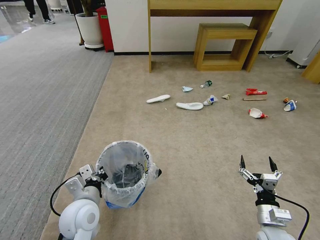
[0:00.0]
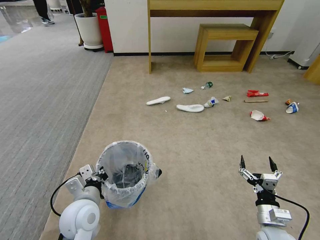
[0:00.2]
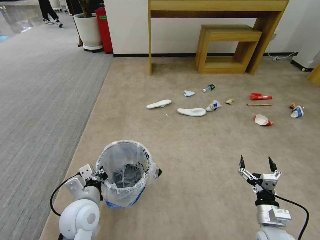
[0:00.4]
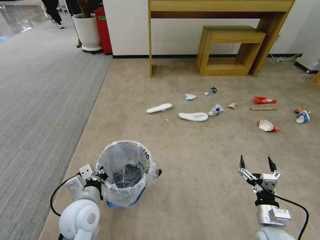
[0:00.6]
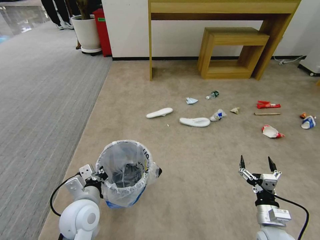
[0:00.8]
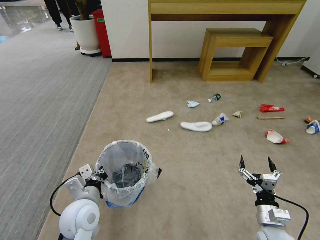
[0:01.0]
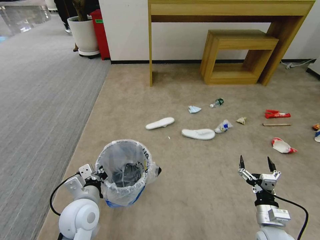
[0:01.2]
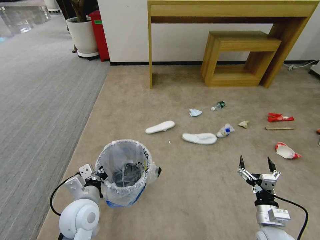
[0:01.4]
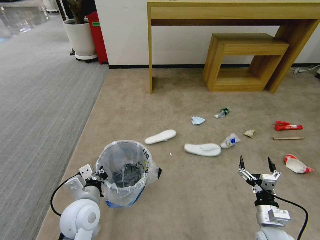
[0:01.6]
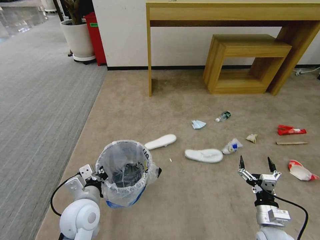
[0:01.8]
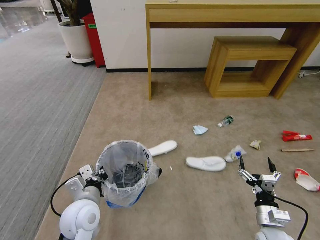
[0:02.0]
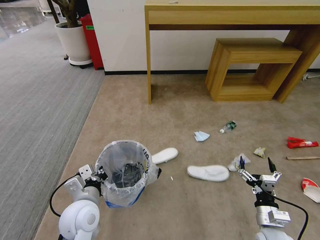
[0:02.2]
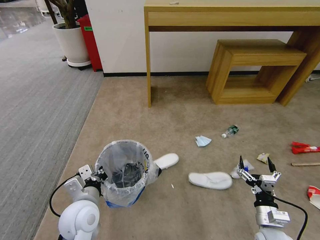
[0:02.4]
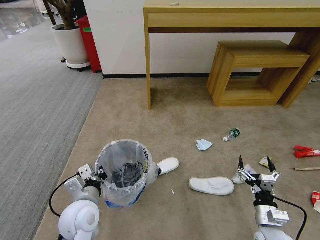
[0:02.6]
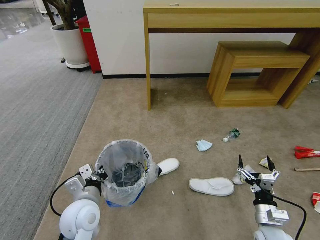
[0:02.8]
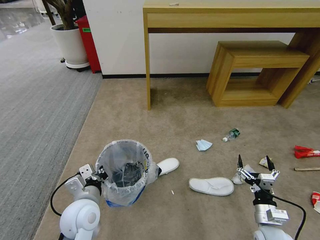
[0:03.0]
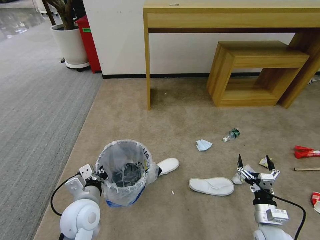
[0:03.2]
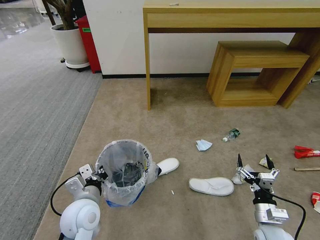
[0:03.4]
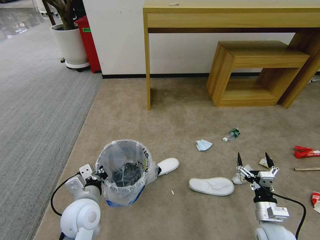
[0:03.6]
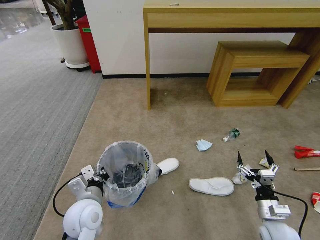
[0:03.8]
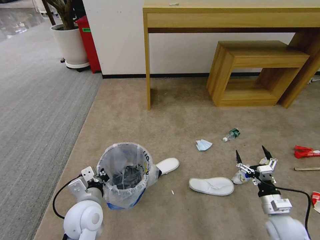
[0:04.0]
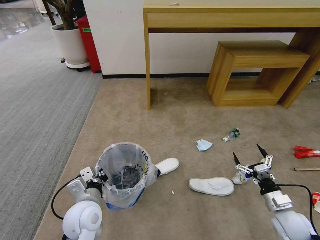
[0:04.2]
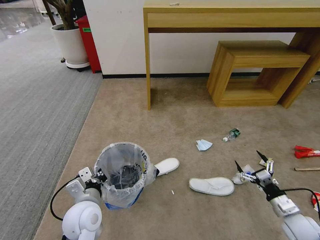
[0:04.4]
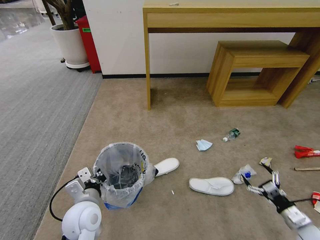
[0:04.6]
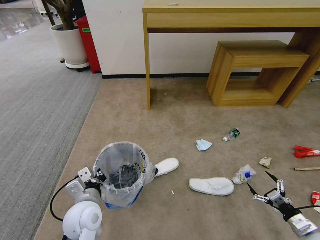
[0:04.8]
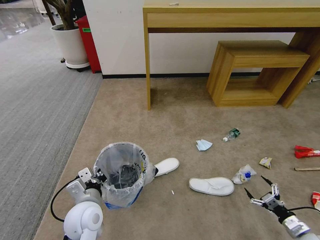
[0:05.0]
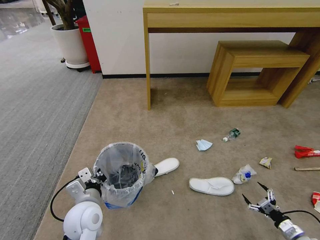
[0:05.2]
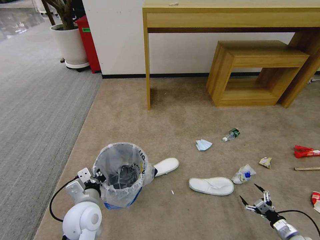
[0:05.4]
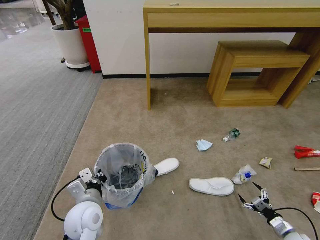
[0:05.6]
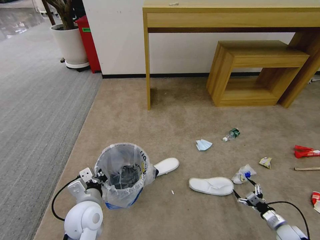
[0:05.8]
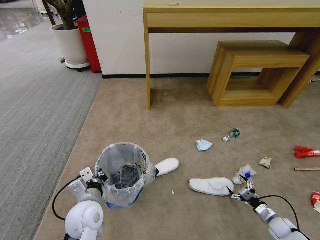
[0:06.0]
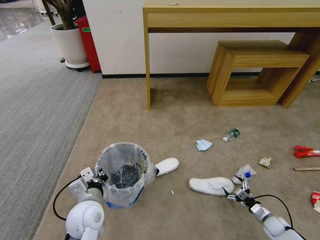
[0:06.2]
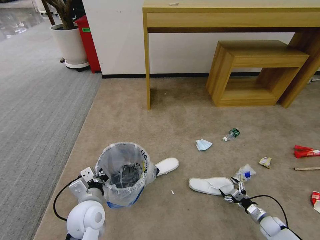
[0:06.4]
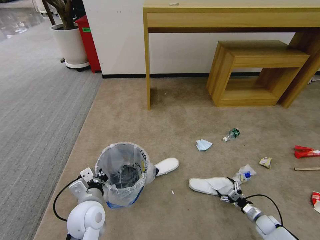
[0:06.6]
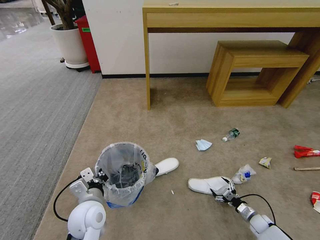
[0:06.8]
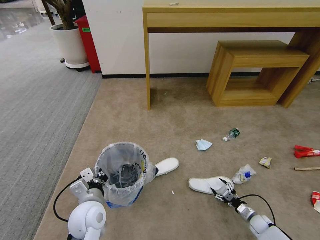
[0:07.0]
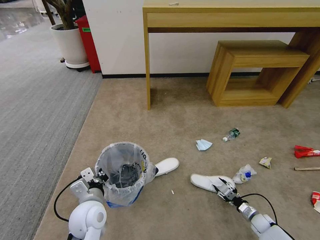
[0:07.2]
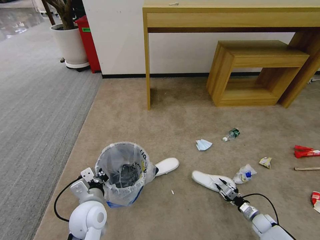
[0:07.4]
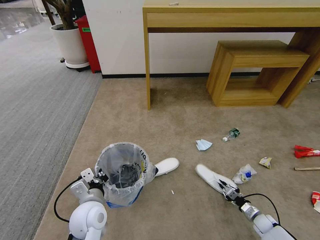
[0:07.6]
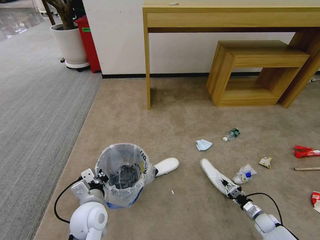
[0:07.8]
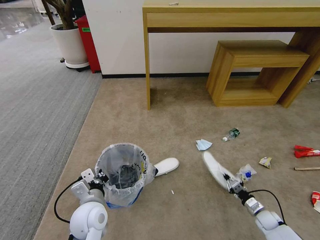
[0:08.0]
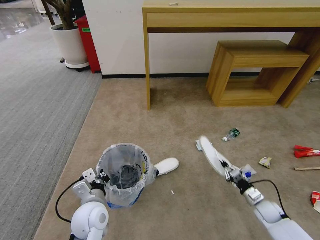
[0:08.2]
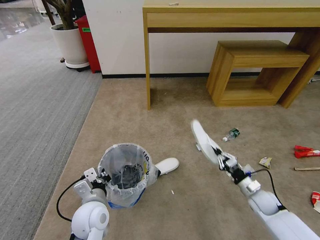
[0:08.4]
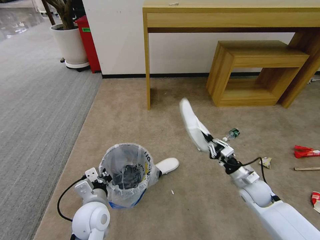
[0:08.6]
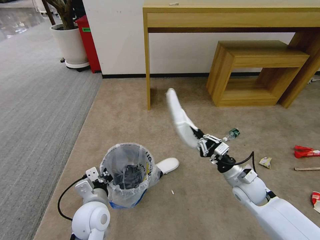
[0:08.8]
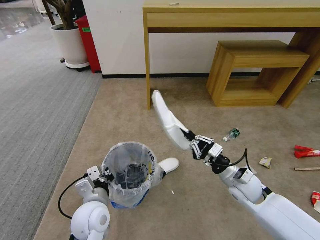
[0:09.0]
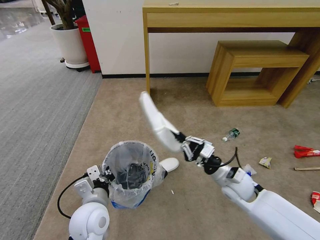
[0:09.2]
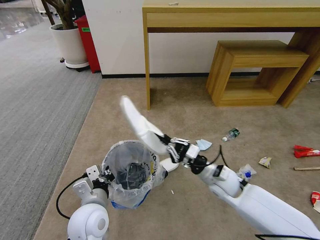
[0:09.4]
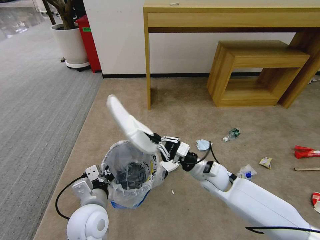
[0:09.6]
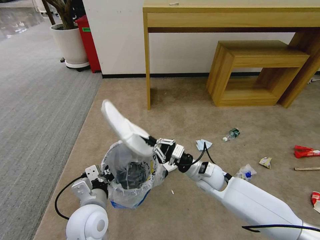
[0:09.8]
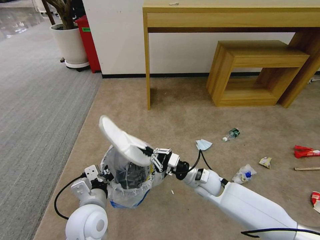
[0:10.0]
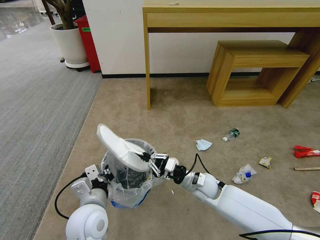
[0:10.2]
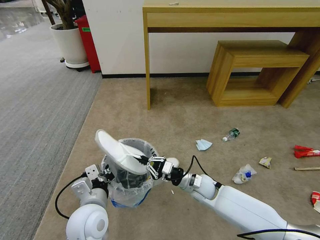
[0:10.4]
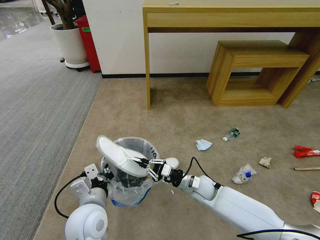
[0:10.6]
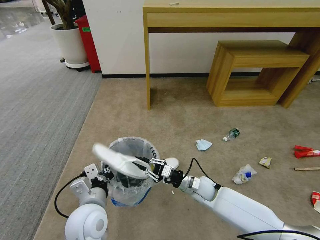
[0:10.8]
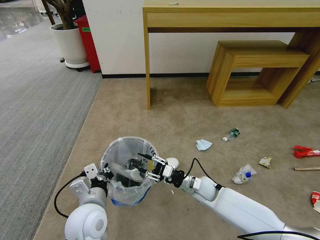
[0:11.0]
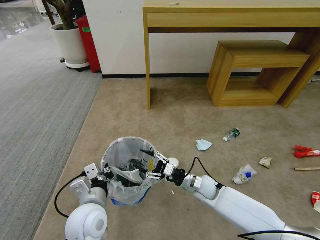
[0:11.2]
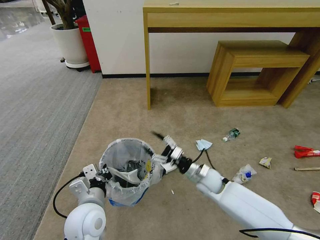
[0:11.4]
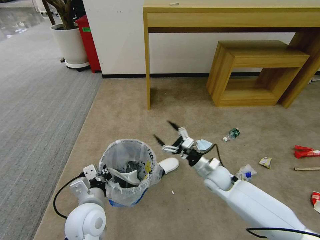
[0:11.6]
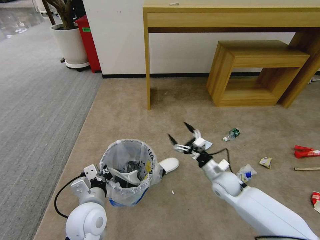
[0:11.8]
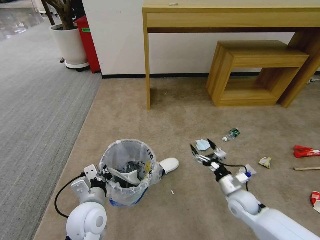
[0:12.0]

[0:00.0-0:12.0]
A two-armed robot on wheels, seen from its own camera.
Task of the whole recording: Pick up the trash bin and place the garbage on the floor into it.
0:03.0 to 0:04.4: The right gripper moves to the right, some 10 cm.
0:04.4 to 0:06.0: The right gripper is displaced downward by approximately 15 cm.
0:06.0 to 0:07.6: The right gripper changes place by some 5 cm, and closes up.
0:07.6 to 0:09.0: The right gripper moves upward and to the left, about 35 cm.
0:09.0 to 0:10.4: The right gripper heads to the left and downward, covering some 15 cm.
0:10.4 to 0:12.0: The right gripper is displaced to the right by some 15 cm, and opens its fingers.

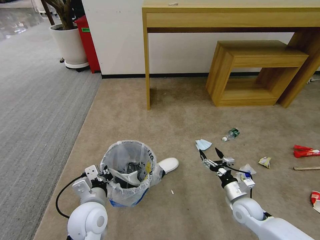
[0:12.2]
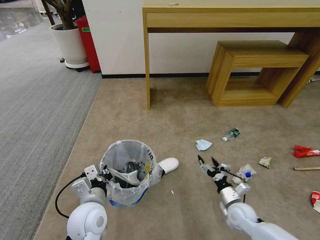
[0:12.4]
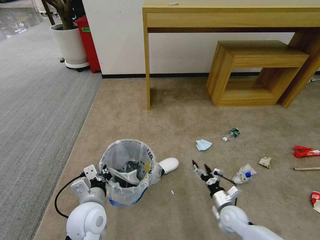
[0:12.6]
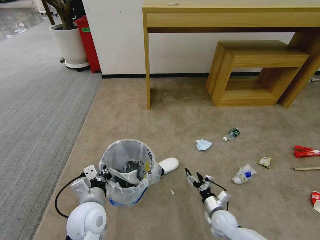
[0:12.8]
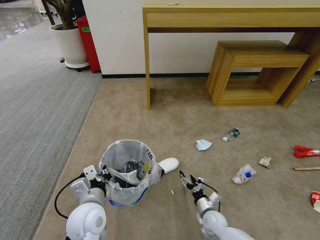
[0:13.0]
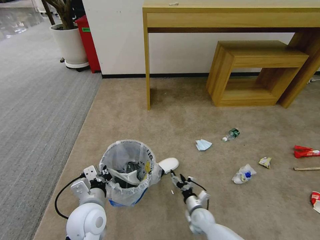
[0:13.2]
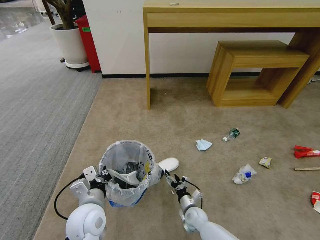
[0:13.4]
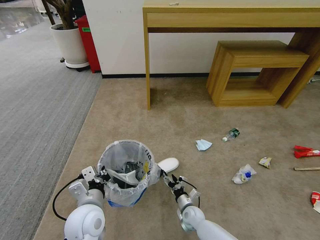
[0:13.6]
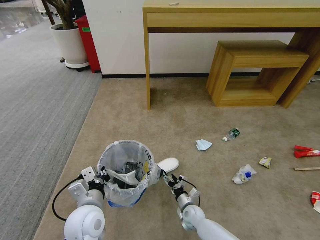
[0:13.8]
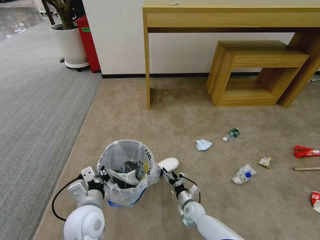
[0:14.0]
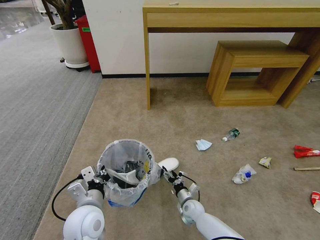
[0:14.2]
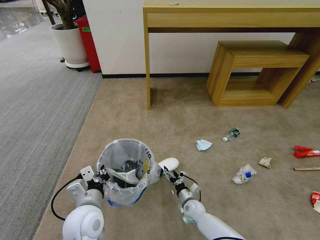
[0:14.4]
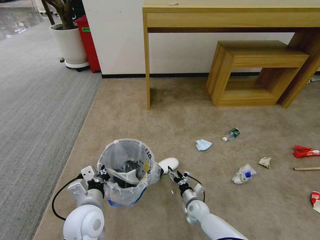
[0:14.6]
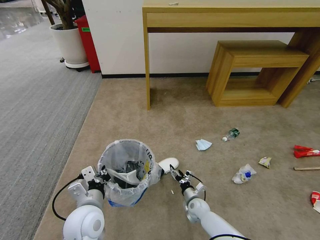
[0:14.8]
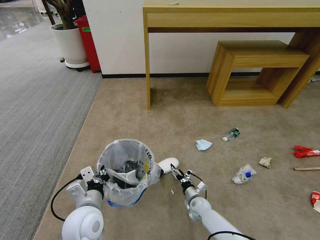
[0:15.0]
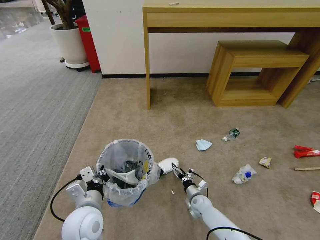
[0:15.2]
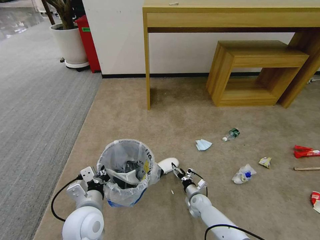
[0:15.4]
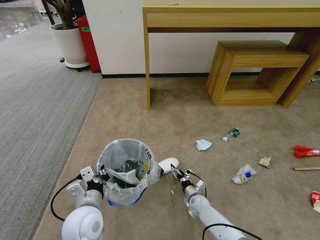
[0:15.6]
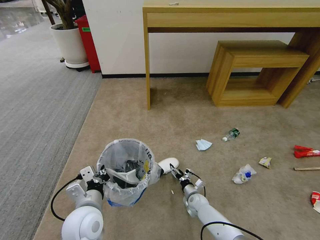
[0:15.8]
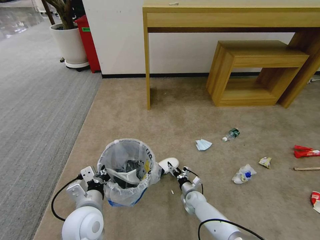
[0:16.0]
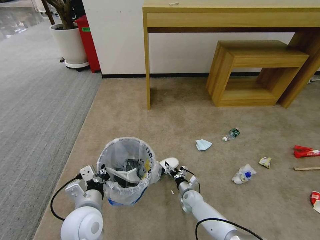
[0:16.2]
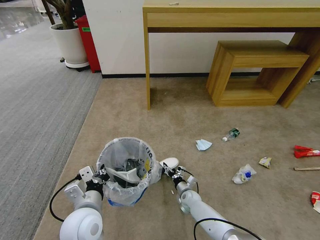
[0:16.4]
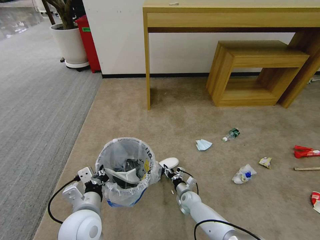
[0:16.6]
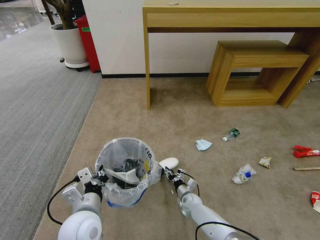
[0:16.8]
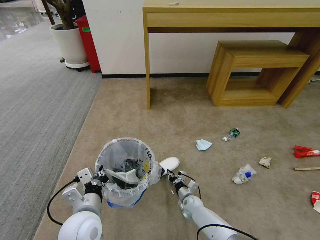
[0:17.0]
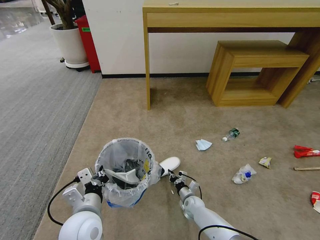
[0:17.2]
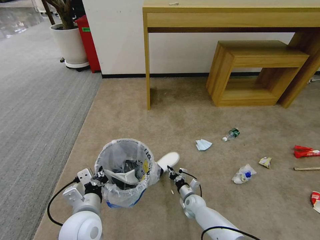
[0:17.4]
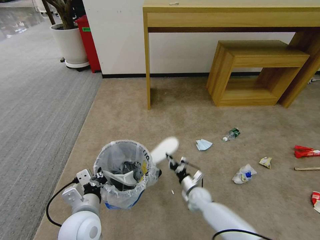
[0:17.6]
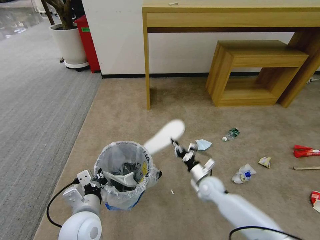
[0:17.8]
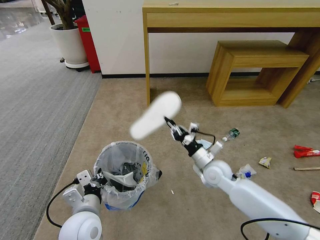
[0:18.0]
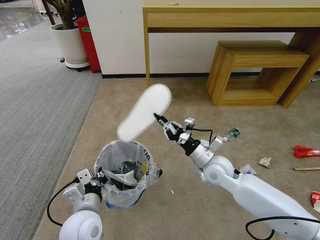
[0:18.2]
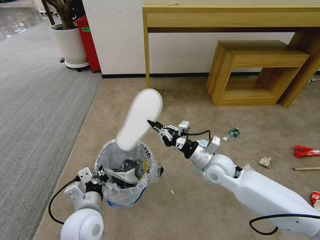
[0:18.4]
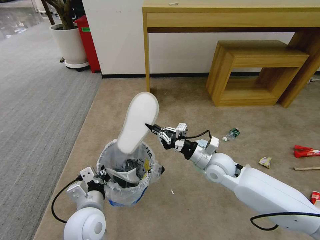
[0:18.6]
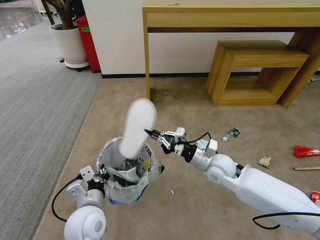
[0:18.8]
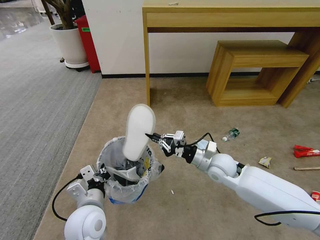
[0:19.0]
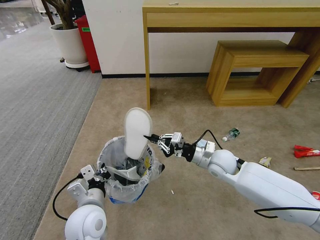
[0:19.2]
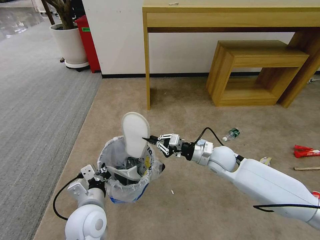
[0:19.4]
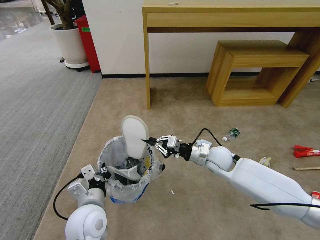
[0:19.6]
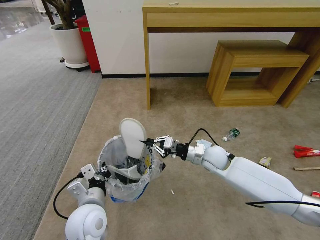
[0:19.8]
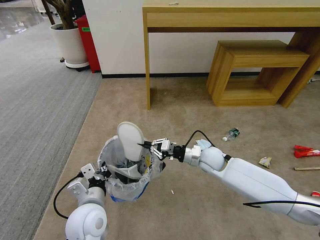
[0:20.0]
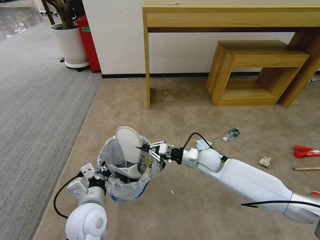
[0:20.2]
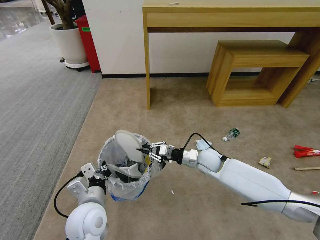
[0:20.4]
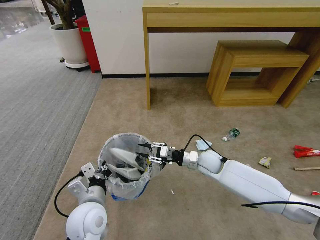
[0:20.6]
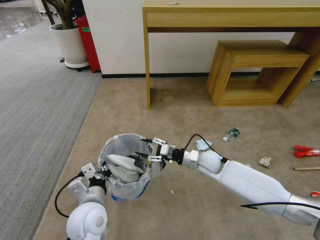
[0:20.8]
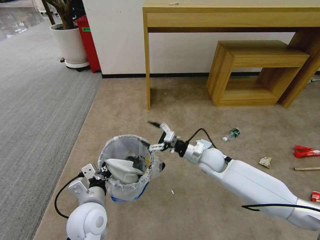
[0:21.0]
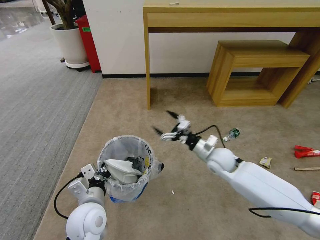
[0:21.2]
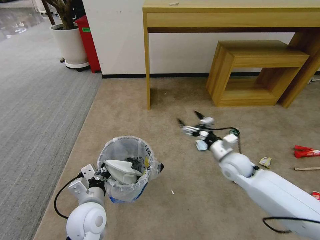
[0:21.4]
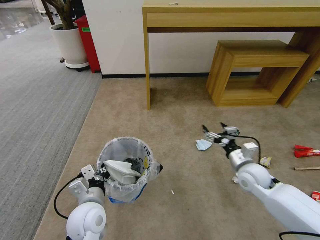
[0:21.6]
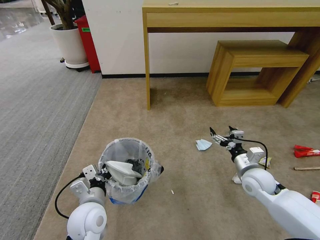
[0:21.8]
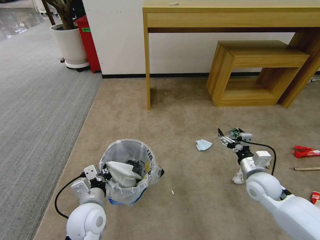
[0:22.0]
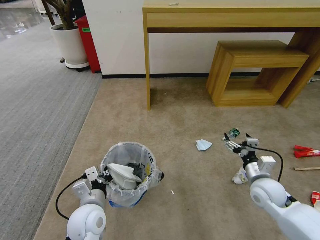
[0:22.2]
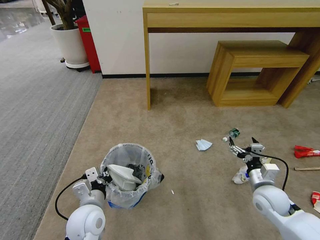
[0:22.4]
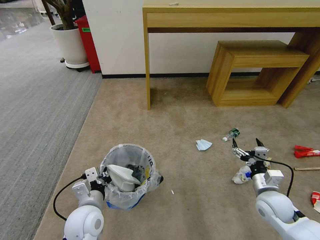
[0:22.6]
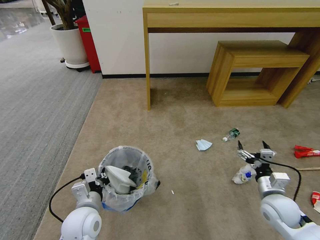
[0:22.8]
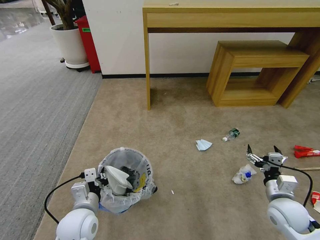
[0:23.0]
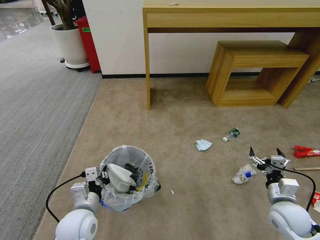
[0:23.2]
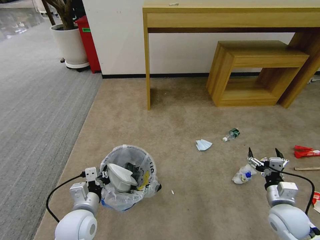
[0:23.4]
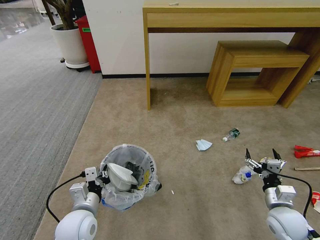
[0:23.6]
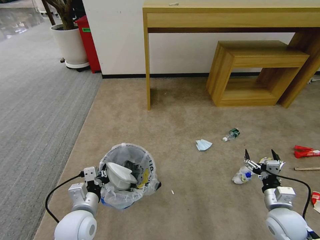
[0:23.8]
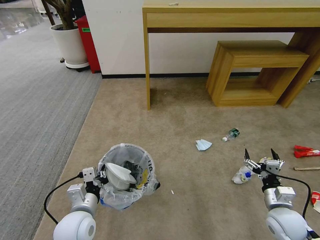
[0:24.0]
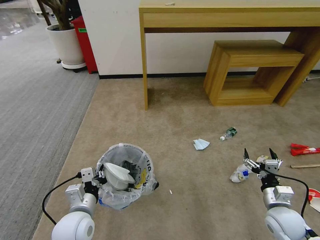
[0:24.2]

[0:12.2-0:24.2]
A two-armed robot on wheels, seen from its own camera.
Task of the whole recording: Pick up the trash bin and place the garbage on the floor into it.
0:12.2 to 0:13.8: The right gripper moves to the left and downward, some 20 cm.
0:13.8 to 0:15.2: The right gripper changes place by some 5 cm.
0:15.2 to 0:16.6: The right gripper shifts by roughly 5 cm, and closes its fingers.
0:16.6 to 0:18.2: The right gripper heads upward, covering about 30 cm, and closes up.
0:18.2 to 0:19.8: The right gripper heads forward, covering approximately 5 cm.
0:19.8 to 0:21.2: The right gripper opens its fingers.
0:21.2 to 0:22.6: The right gripper is displaced to the right and backward by roughly 20 cm.
0:22.6 to 0:24.2: The right gripper shifts by some 5 cm.
